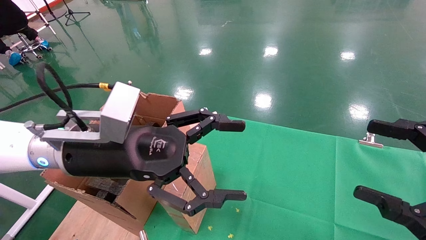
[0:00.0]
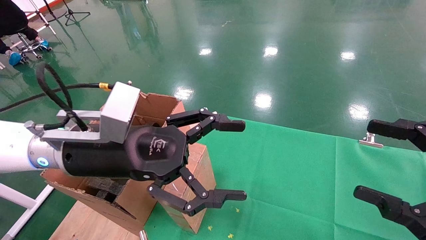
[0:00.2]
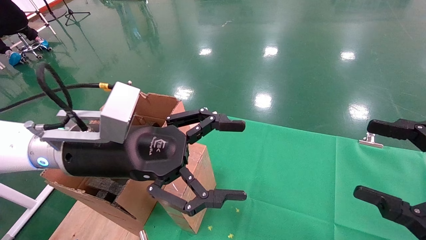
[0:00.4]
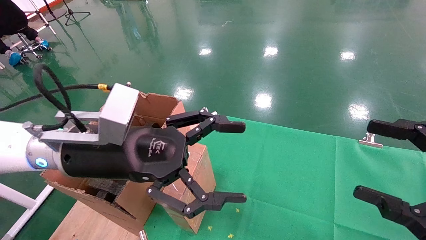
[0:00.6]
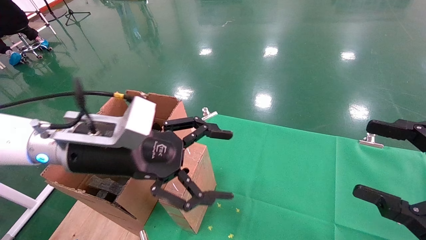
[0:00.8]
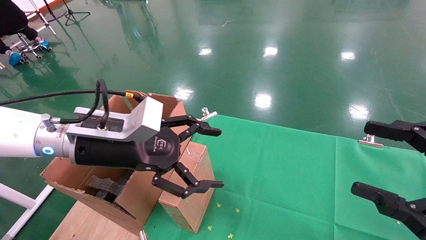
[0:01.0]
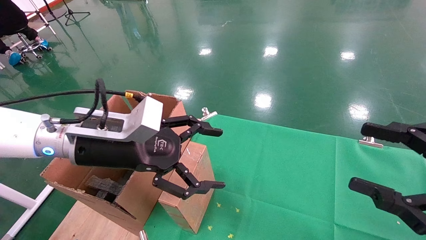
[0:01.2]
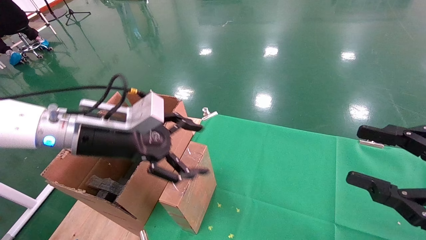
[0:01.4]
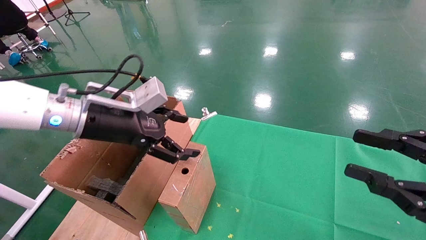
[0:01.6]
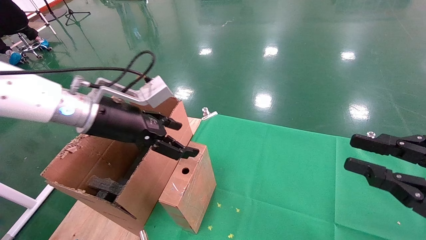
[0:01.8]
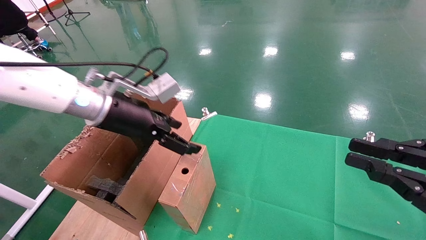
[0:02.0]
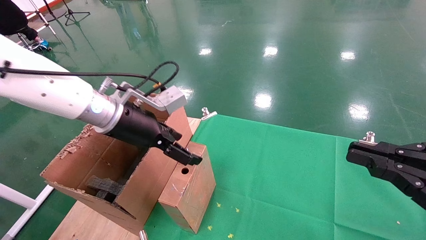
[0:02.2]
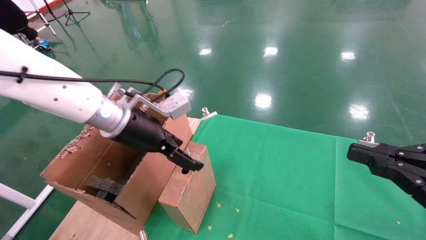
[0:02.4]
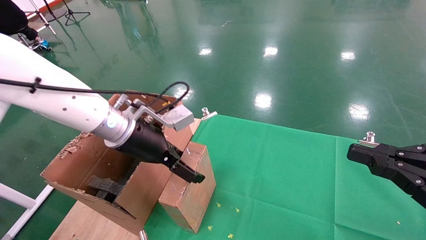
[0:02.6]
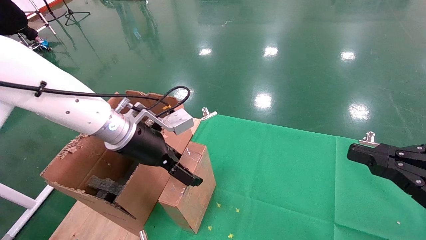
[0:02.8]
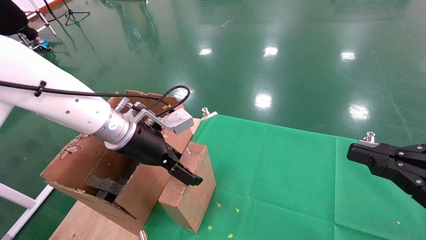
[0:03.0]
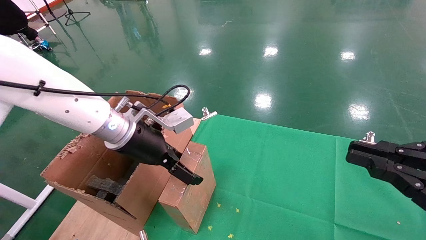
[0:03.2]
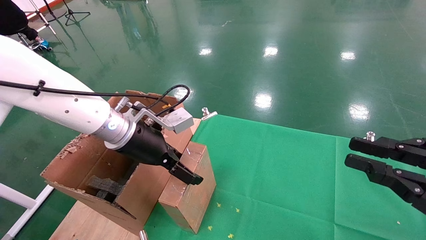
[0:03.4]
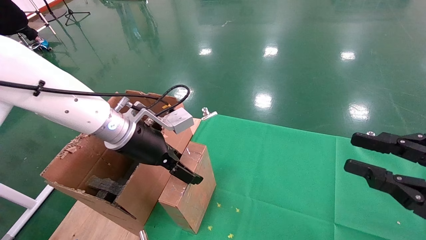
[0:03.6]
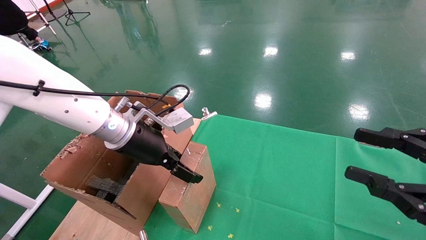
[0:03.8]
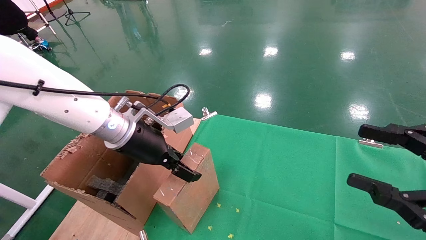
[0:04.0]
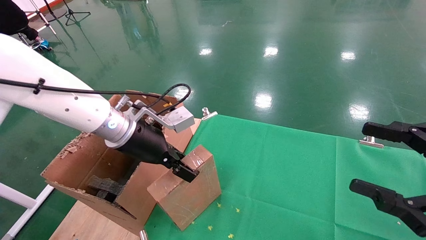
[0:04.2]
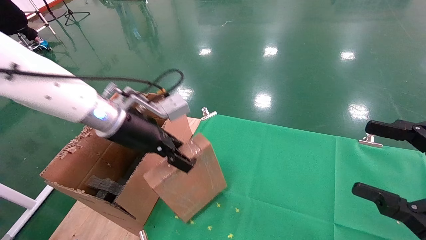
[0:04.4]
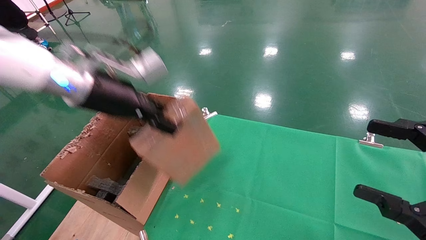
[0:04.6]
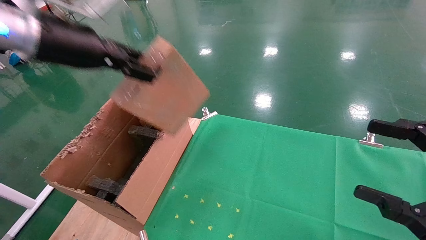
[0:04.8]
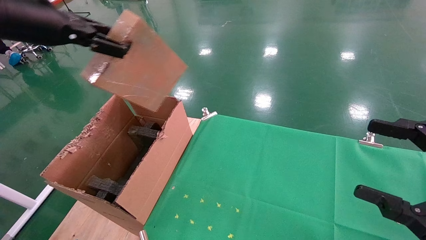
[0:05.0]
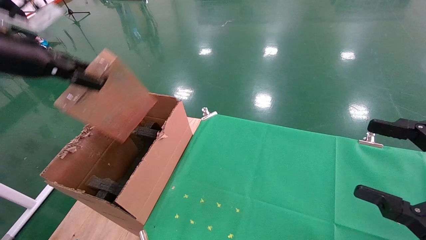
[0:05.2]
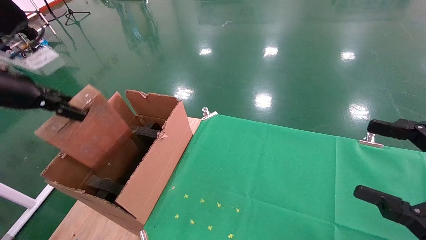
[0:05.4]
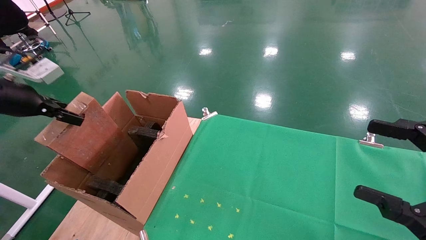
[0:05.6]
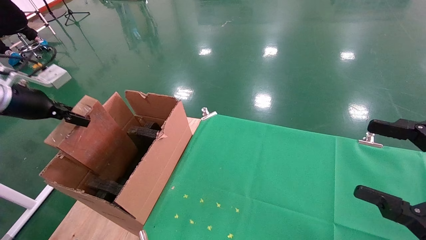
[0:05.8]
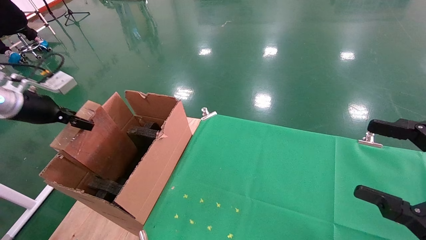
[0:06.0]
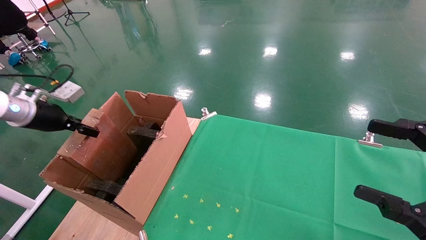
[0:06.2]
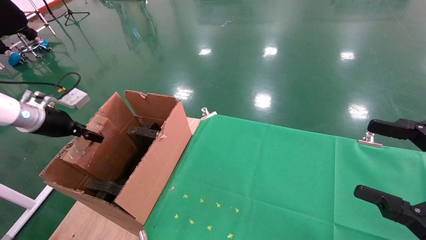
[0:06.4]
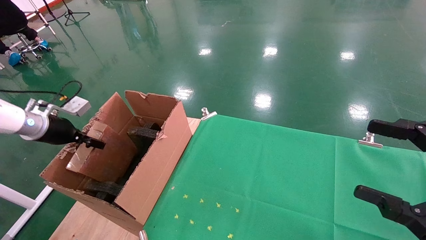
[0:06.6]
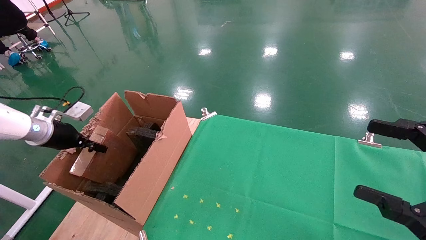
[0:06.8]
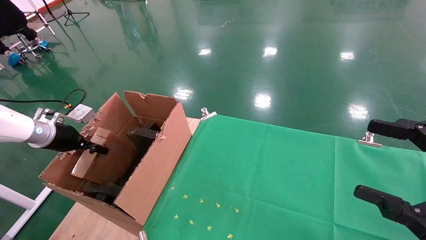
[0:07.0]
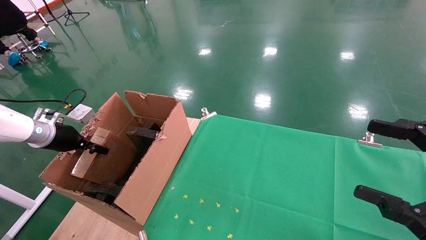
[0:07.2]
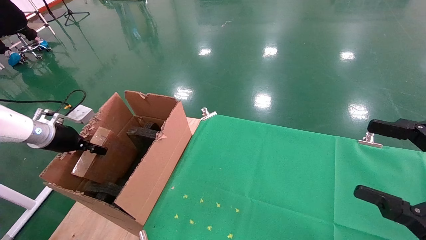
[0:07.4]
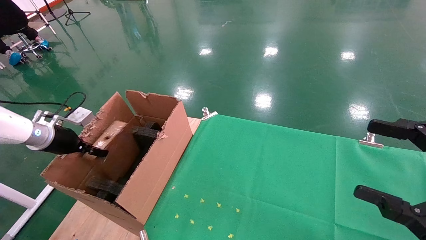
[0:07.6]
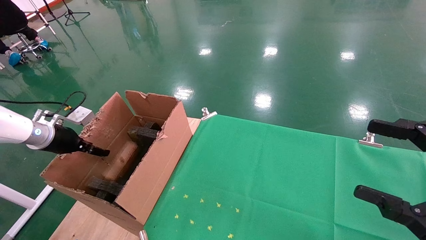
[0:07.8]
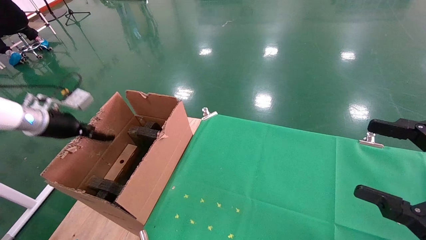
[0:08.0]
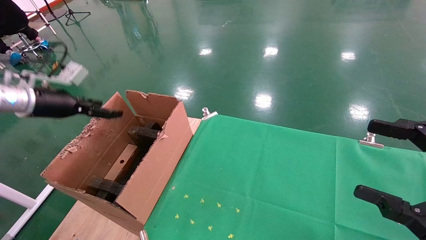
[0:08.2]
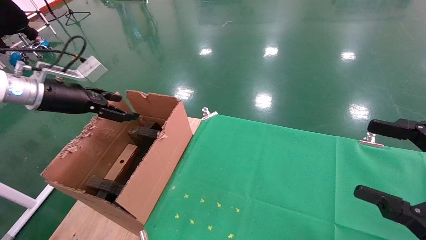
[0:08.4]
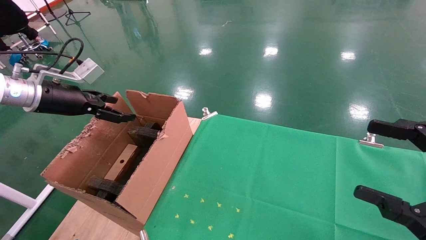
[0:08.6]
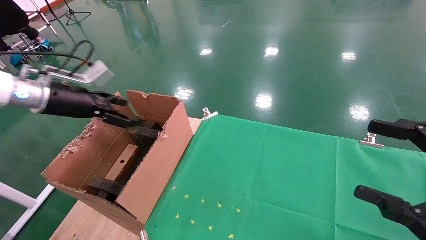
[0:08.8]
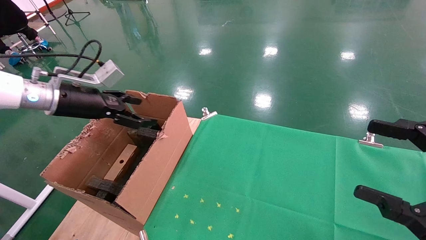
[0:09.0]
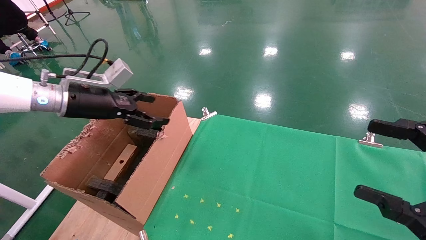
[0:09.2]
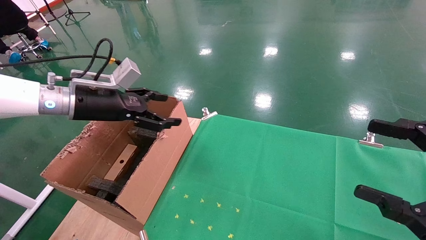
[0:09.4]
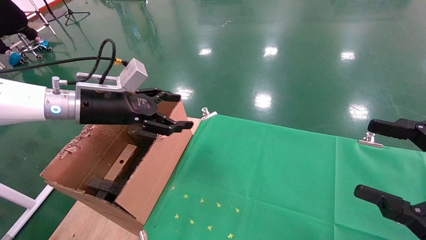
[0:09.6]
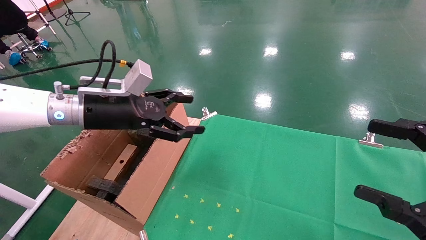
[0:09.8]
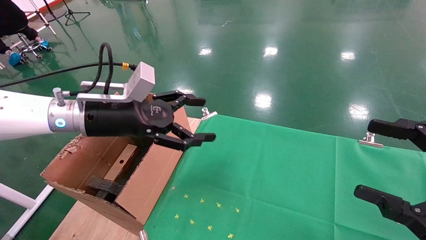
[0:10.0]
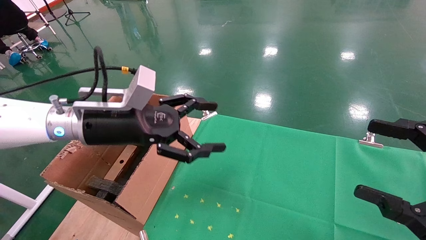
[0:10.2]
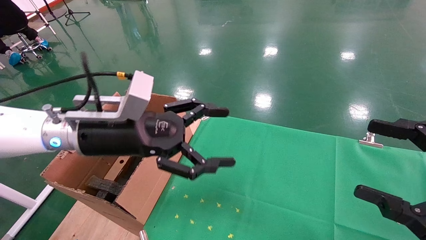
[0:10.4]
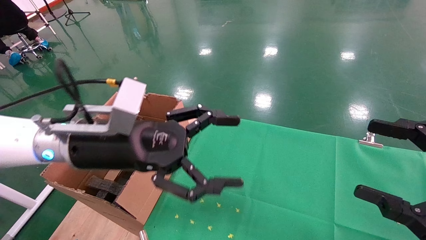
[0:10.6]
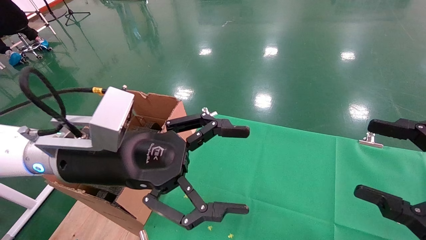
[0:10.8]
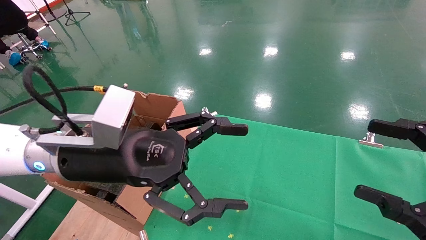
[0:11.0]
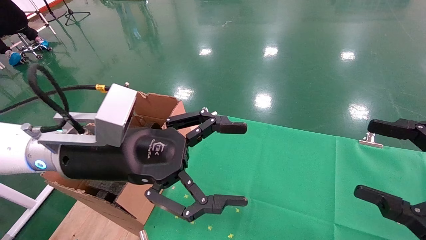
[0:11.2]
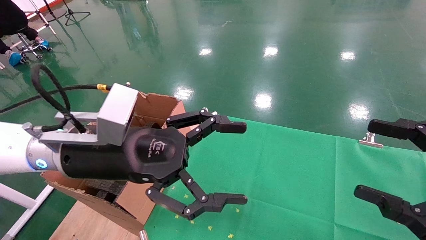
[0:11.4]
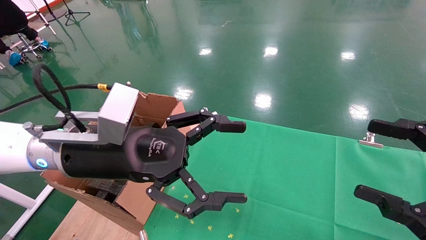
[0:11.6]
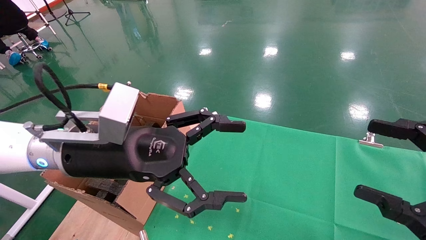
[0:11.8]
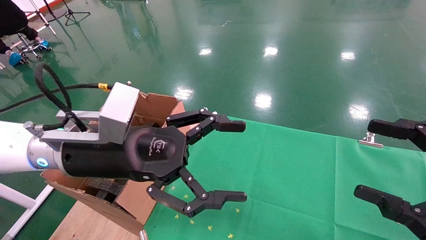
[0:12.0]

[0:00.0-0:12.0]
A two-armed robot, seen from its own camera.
Task of the whole recording: using a robotic arm to pick up a cardboard box and palace it the carton.
Step, 0:01.0 to 0:04.0: Pick up the mouse and the power cord paper box.
Step, 0:04.2 to 0:07.4: Place the mouse and the power cord paper box into the container.
0:00.0 to 0:01.6: The left gripper moves forward, about 5 cm, while the right gripper closes its fingers.
0:01.6 to 0:03.0: The right gripper closes its fingers, while the left gripper ends up about 5 cm from where it was.
0:03.0 to 0:04.4: The right gripper opens its fingers. Meanwhile the left gripper changes place by approximately 5 cm, and closes up.
0:04.4 to 0:06.0: The left gripper moves to the left, approximately 25 cm.
0:06.0 to 0:07.6: The left gripper moves downward, about 10 cm.
0:07.6 to 0:09.0: The left gripper is displaced upward and to the right by approximately 15 cm, and opens up.
0:09.0 to 0:10.4: The left gripper moves to the right and backward, some 20 cm.
0:10.4 to 0:12.0: The grippers make only small movements.

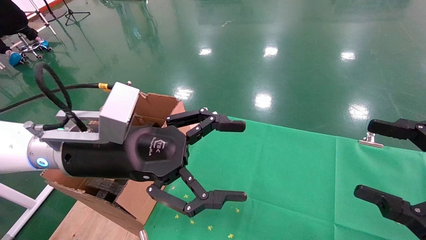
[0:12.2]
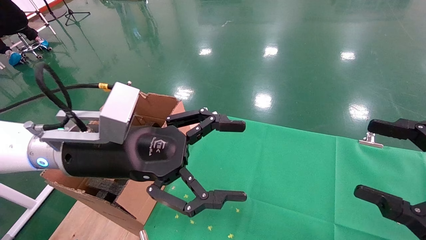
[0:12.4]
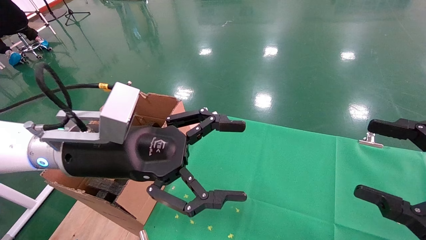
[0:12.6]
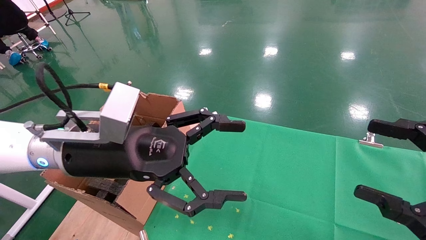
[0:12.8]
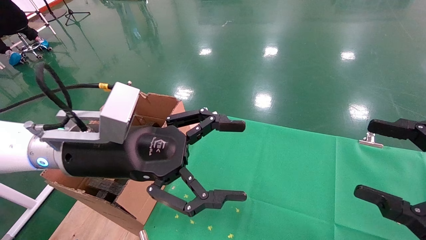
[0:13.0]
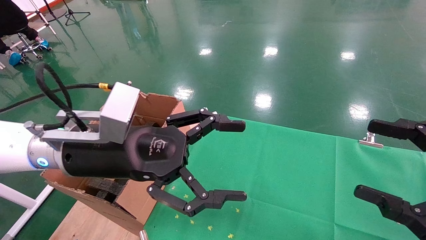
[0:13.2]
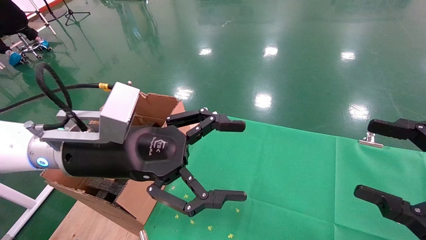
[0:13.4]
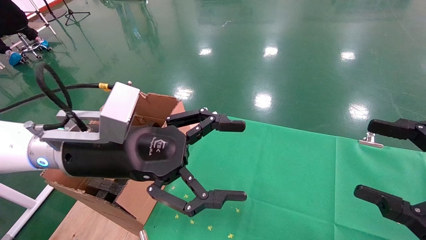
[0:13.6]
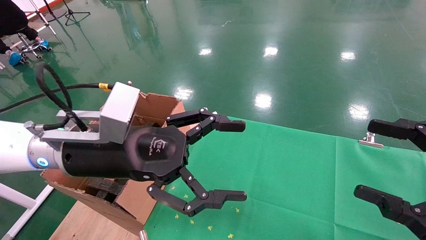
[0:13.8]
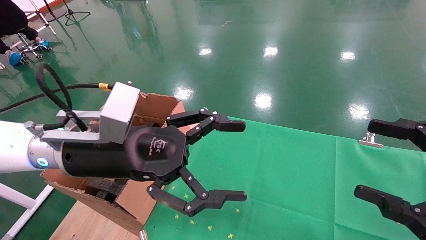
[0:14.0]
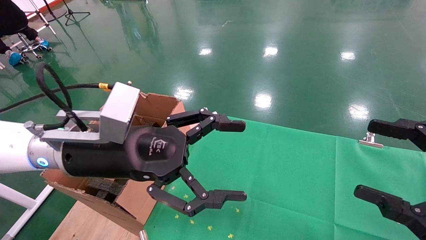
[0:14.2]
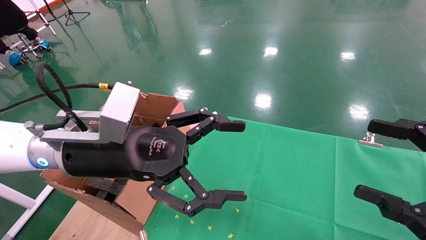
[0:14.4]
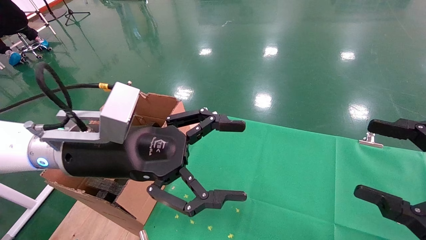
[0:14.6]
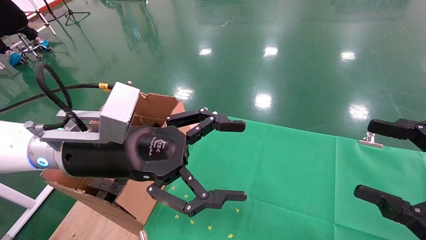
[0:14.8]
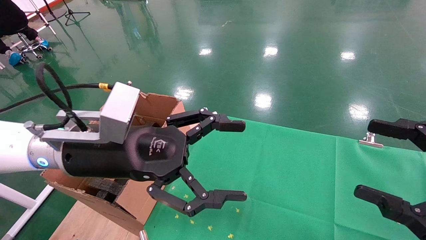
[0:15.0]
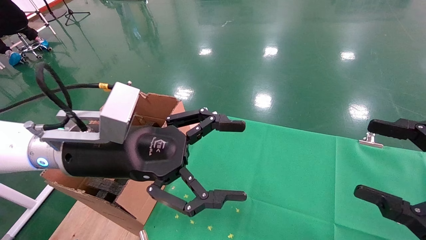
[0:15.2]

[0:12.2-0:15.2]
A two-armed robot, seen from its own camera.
Task of the whole recording: using a robotic arm to pick up a cardboard box and palace it the carton.
0:12.2 to 0:15.2: Neither gripper changes place.
